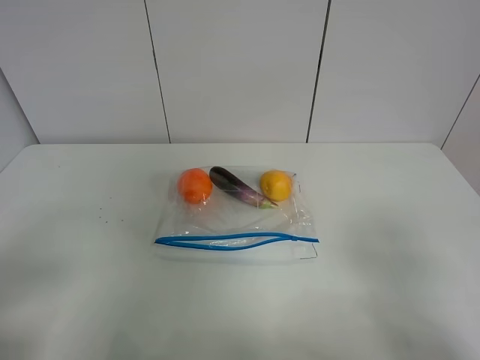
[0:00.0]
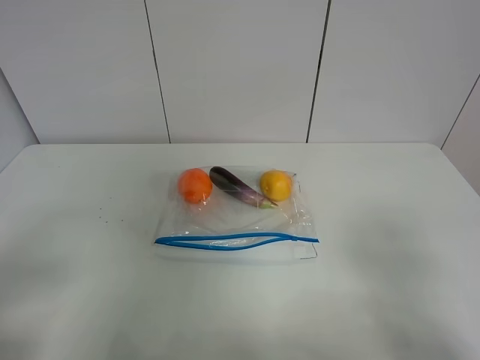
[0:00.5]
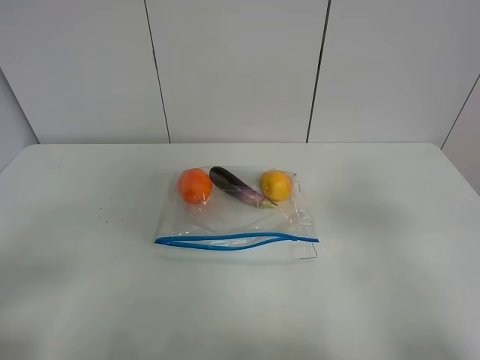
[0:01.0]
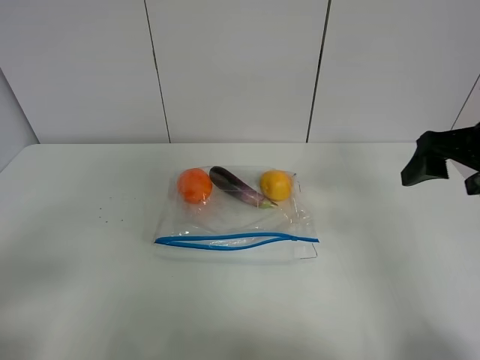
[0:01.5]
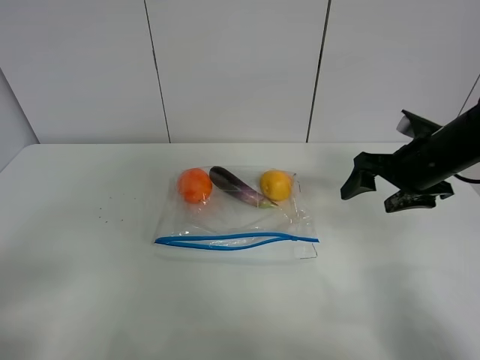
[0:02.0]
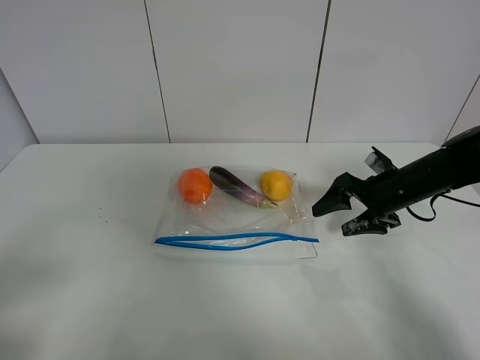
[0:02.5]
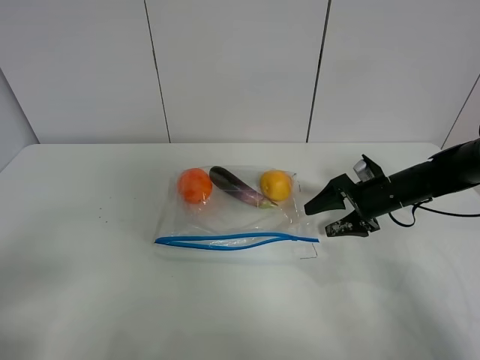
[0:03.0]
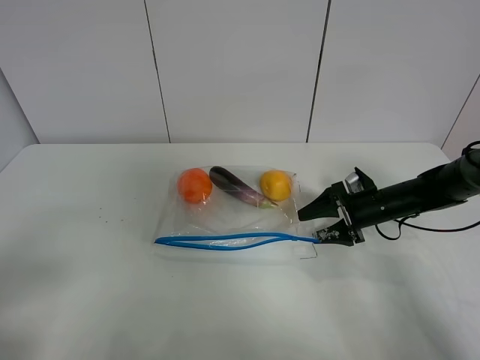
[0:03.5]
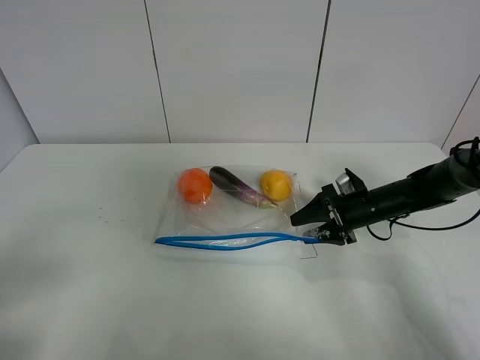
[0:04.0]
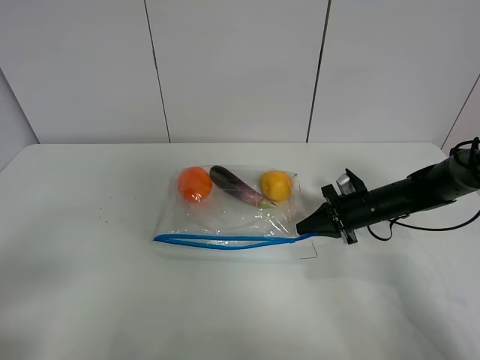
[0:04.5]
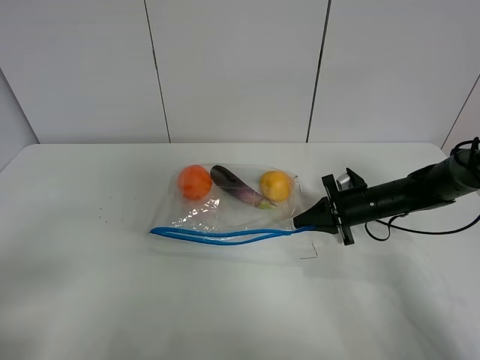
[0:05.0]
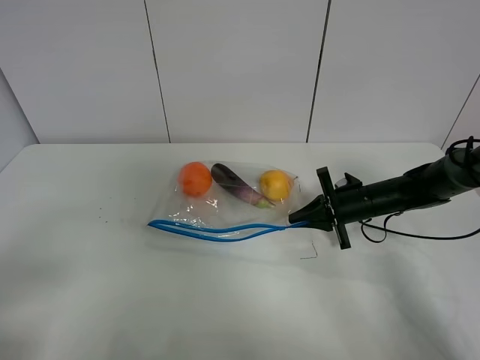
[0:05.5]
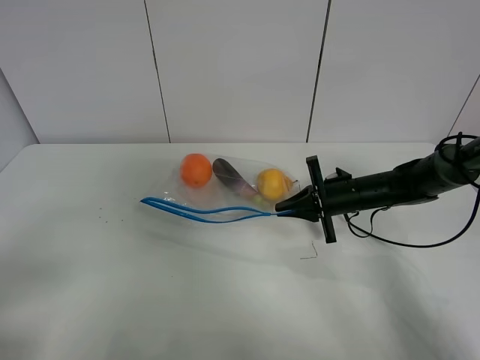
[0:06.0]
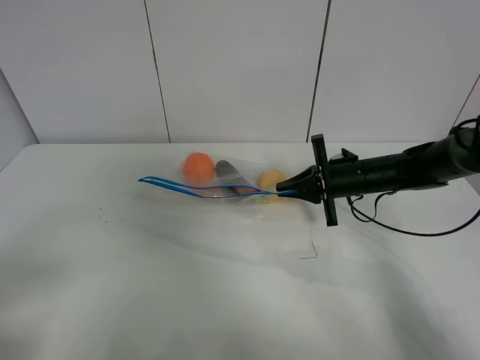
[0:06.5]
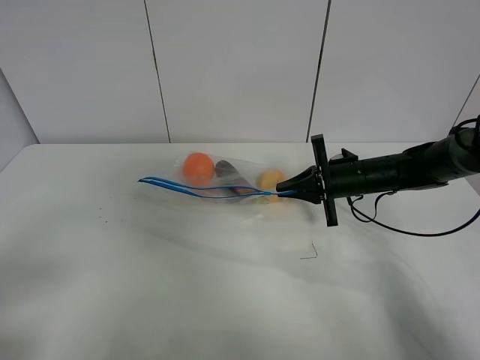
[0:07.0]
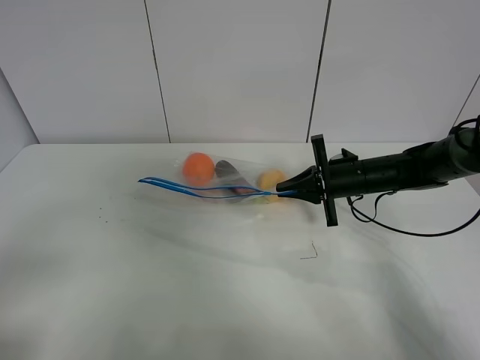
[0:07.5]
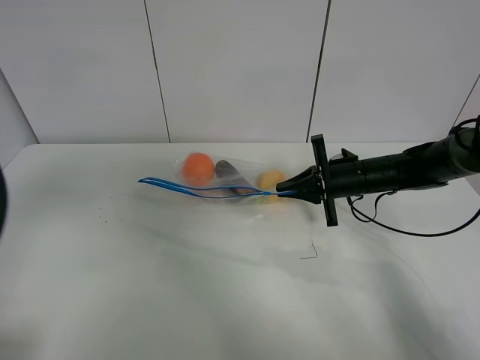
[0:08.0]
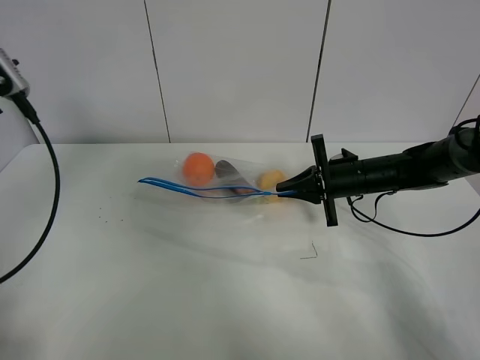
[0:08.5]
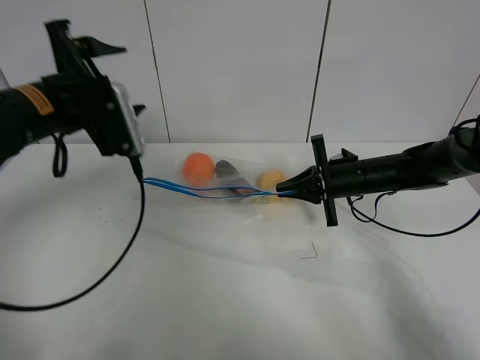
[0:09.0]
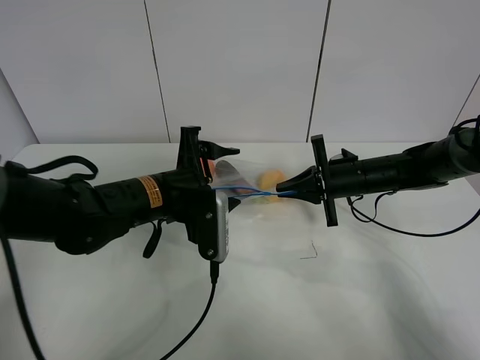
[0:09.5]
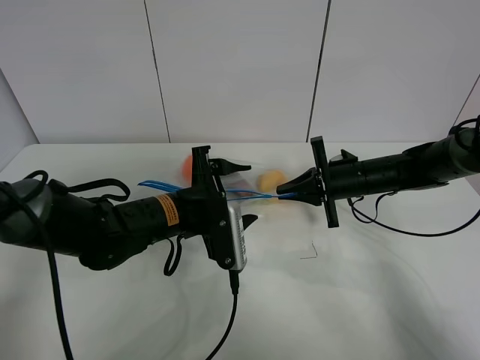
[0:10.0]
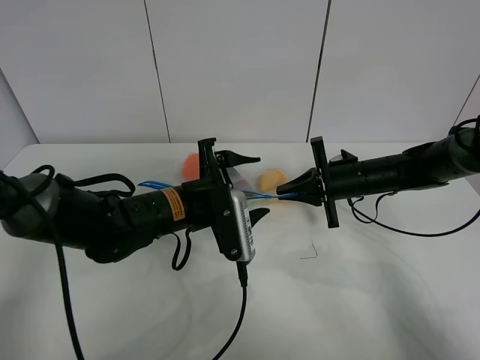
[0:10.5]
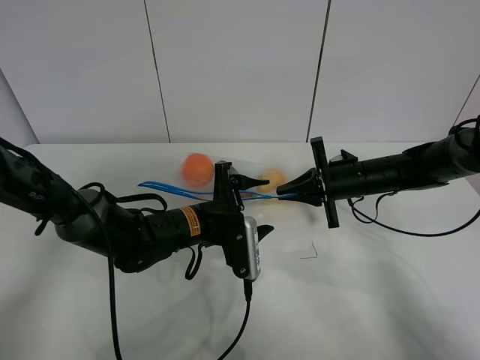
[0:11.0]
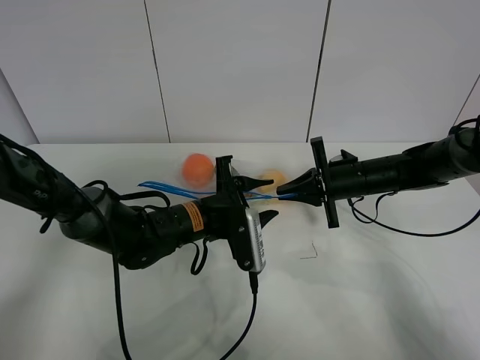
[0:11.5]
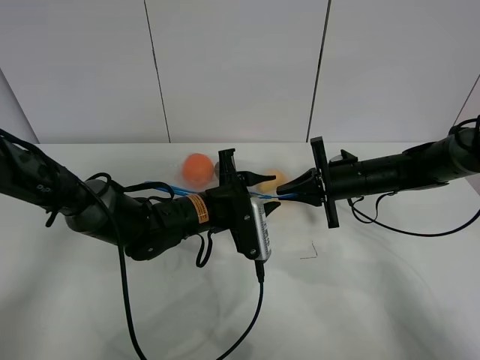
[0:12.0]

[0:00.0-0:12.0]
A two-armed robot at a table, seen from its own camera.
Step, 0:00.0 to 0:04.0: Grasp the fruit bag with right gripper.
Step, 0:04.5 to 0:06.0: Lift the fruit bag with your right gripper.
0:00.0 to 0:02.0: The right gripper shifts about 30 cm forward.
0:02.0 to 0:04.0: The right gripper shifts approximately 15 cm downward.
0:04.0 to 0:06.0: The right gripper closes its fingers.
0:06.0 to 0:08.0: The left gripper is displaced forward and upward by approximately 15 cm.
0:08.0 to 0:10.0: The left gripper travels to the right, downward and forward by roughly 35 cm.
0:10.0 to 0:12.0: The left gripper moves about 5 cm, and closes.

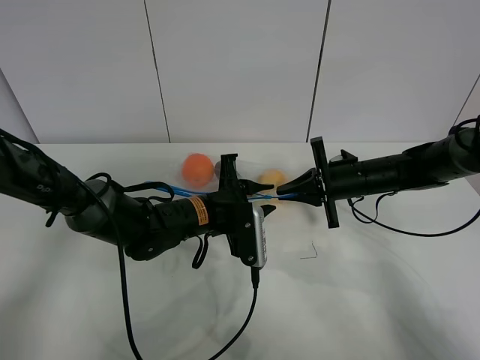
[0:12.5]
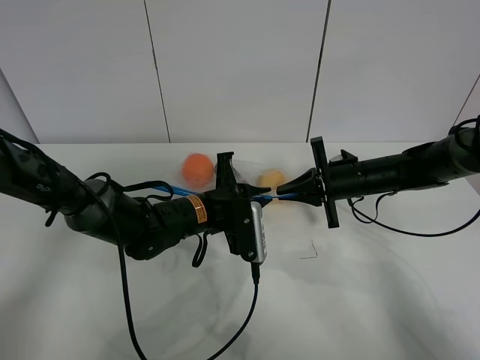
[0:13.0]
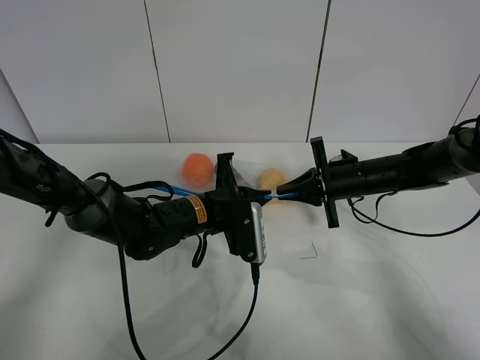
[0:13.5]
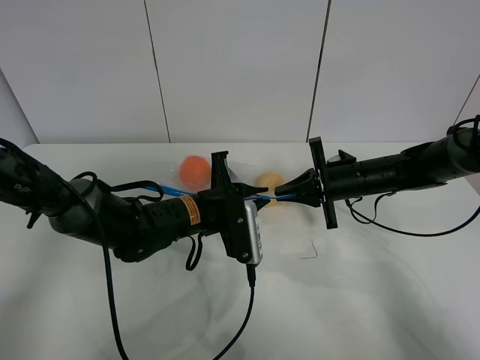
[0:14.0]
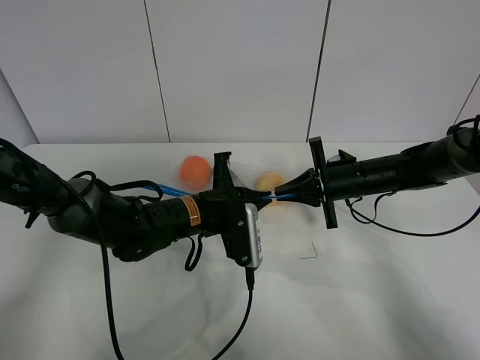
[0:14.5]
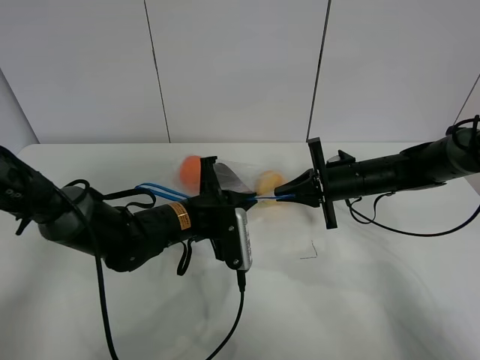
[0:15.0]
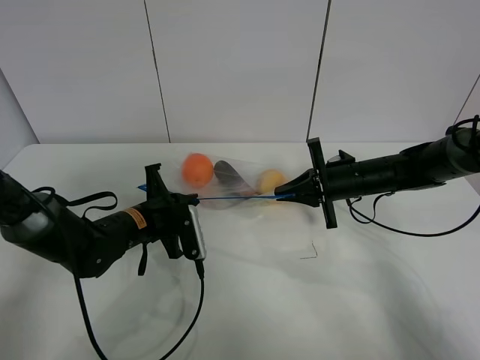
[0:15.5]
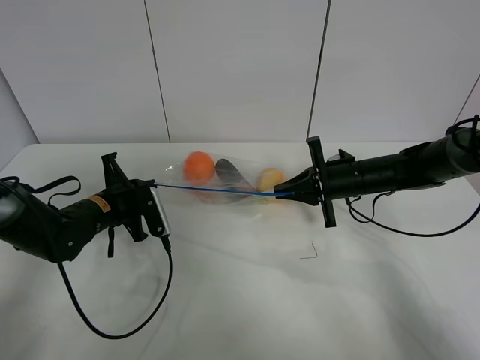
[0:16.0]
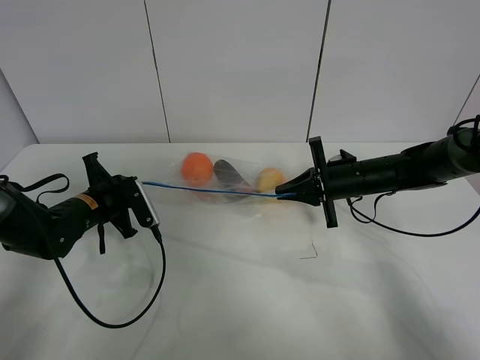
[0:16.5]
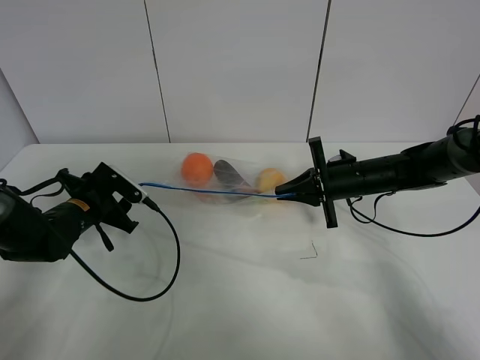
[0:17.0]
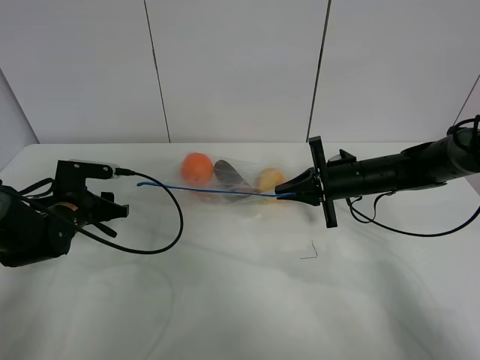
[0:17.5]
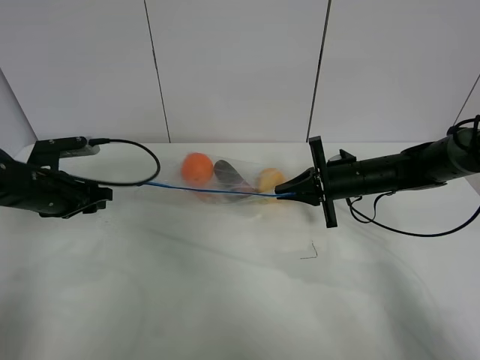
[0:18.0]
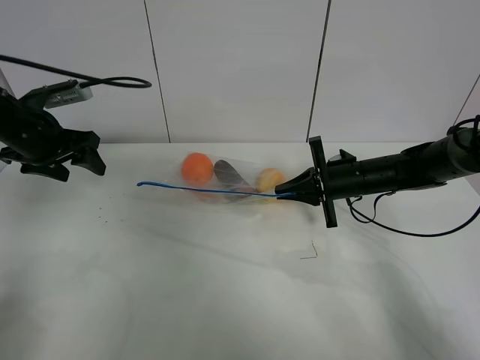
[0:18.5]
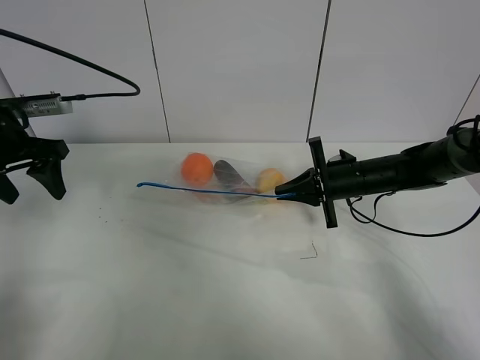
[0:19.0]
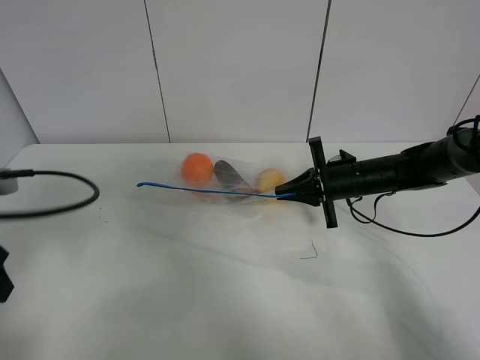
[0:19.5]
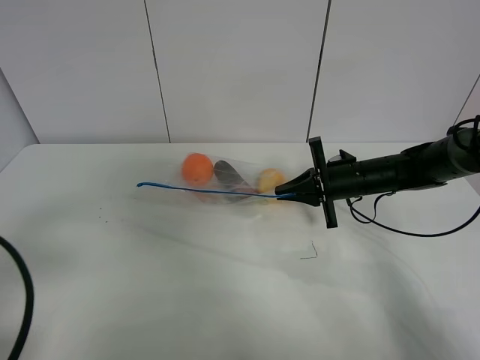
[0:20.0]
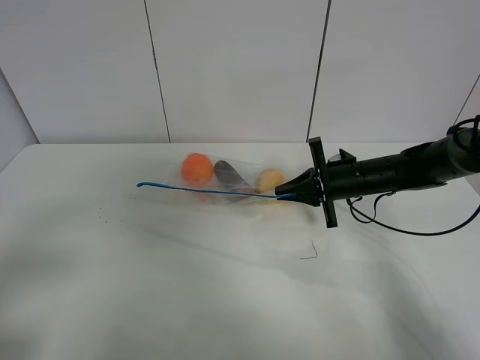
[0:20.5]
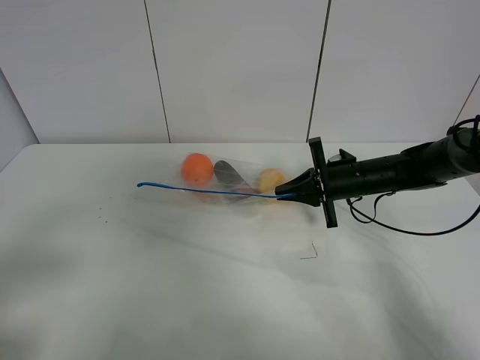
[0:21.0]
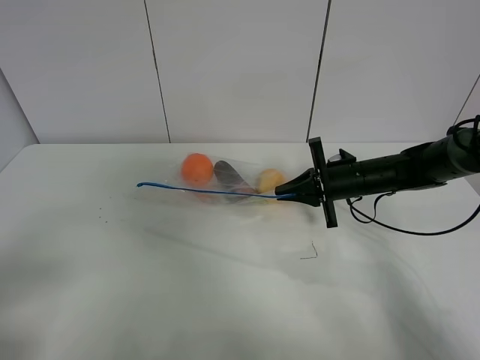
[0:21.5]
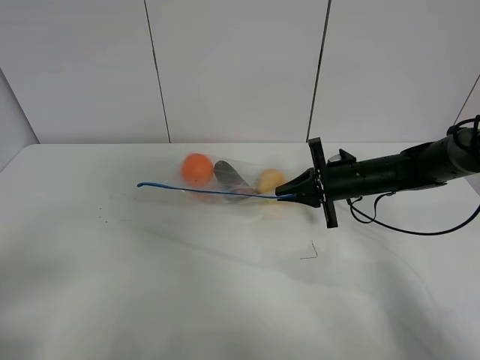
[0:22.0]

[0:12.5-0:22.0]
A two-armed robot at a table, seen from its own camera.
Step, 0:12.5 to 0:16.5: Pull the fruit bag with left gripper.
0:12.5 to 0:14.5: The left gripper closes its fingers.
0:14.5 to 0:16.5: The left gripper travels to the left by approximately 20 cm.
0:16.5 to 0:18.0: The left gripper moves to the left and upward, some 10 cm, and opens.
0:18.0 to 0:20.0: The left gripper is displaced backward by some 25 cm.
0:20.0 to 0:22.0: The left gripper moves backward, approximately 5 cm.

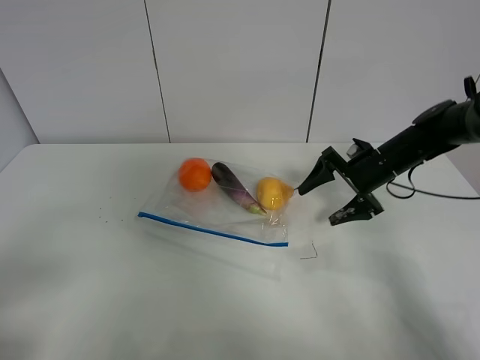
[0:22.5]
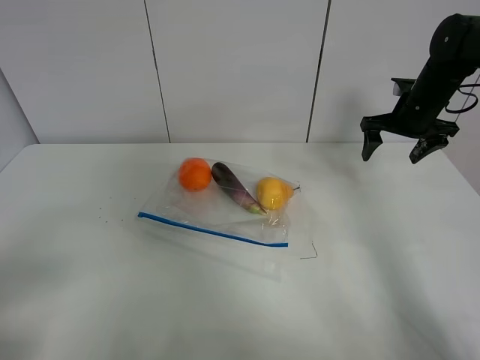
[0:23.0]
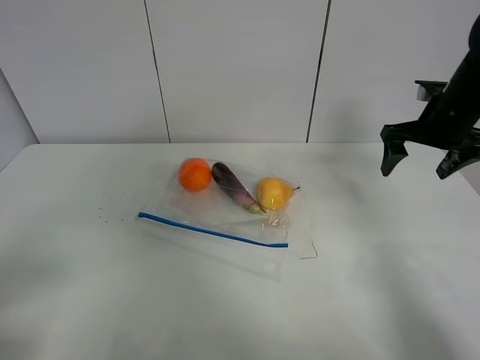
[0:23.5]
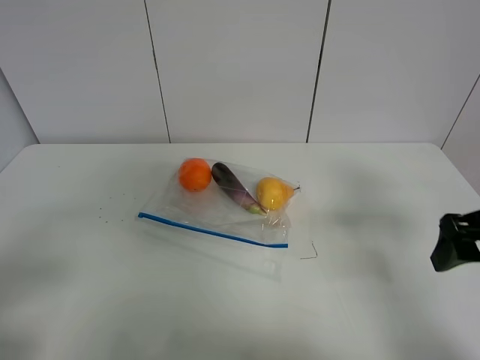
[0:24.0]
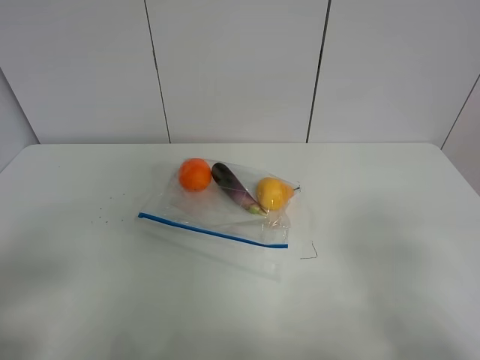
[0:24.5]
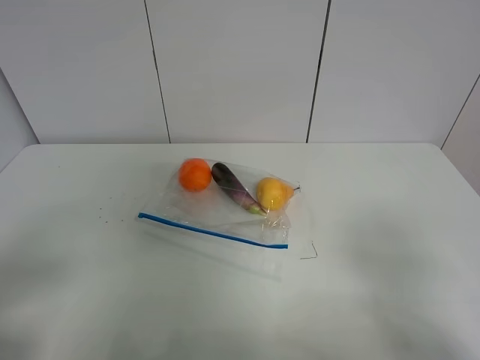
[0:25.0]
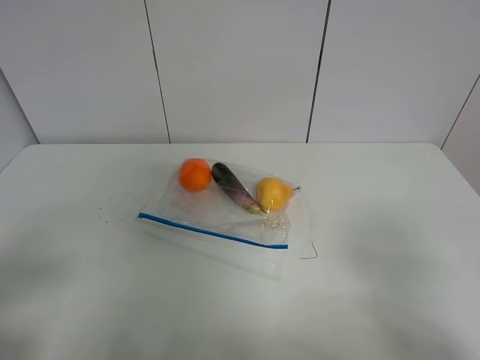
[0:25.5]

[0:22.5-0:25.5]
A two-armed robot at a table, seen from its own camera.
0:22.5 to 0:24.0: The right gripper is displaced backward and upward by roughly 25 cm.
0:24.0 to 0:25.5: The right gripper moves backward, about 15 cm.
